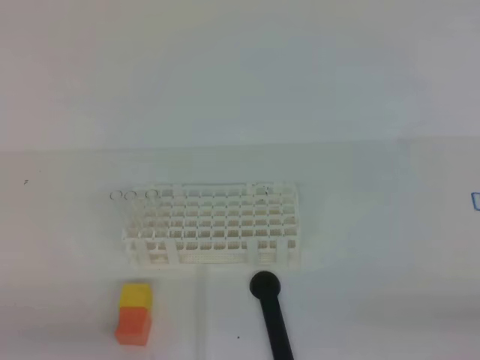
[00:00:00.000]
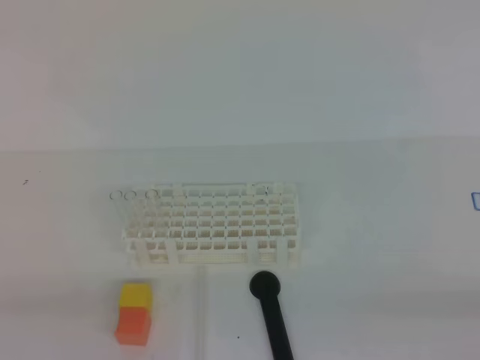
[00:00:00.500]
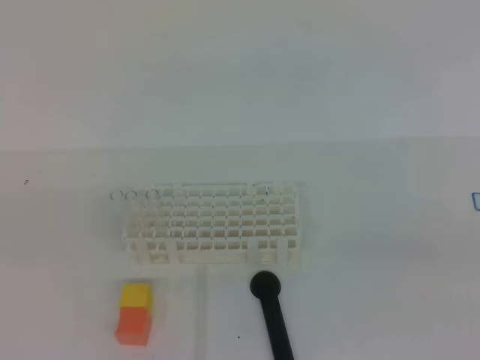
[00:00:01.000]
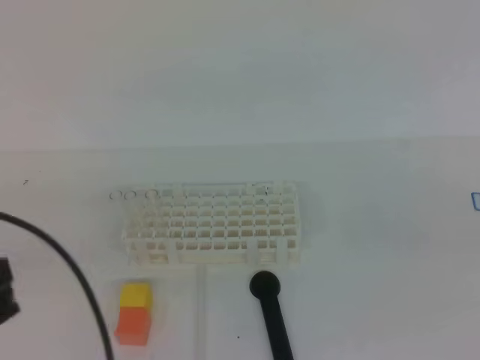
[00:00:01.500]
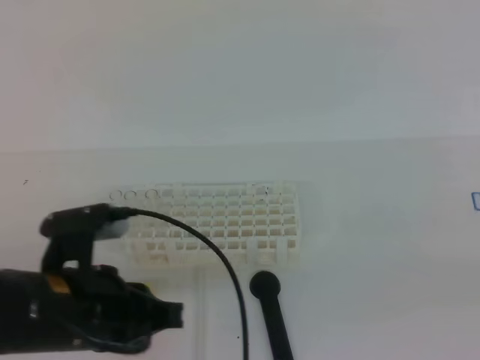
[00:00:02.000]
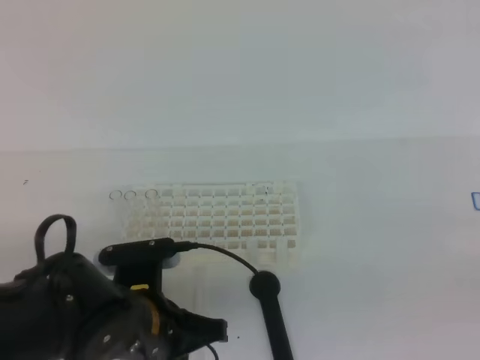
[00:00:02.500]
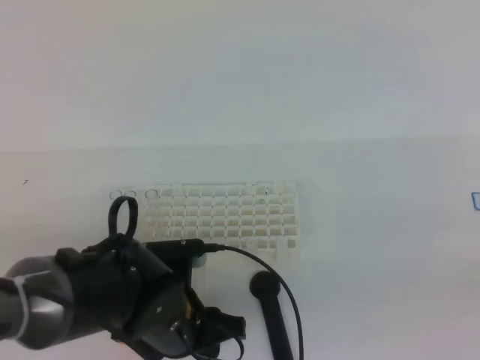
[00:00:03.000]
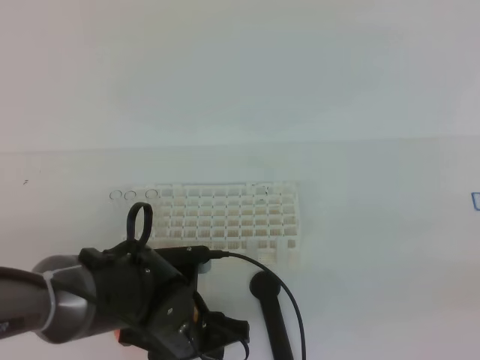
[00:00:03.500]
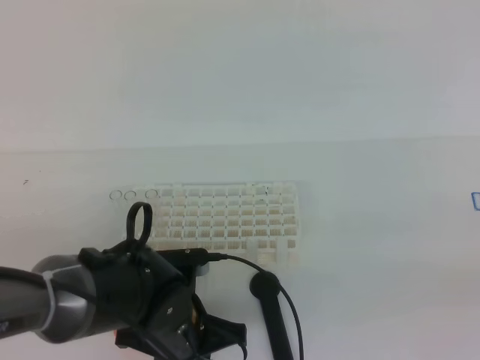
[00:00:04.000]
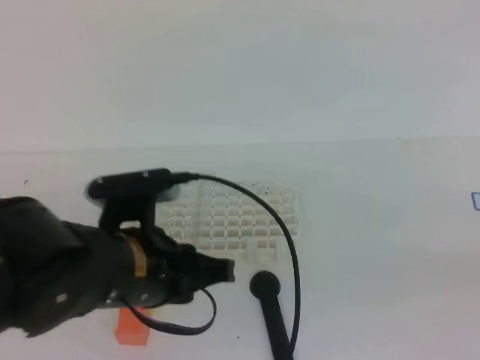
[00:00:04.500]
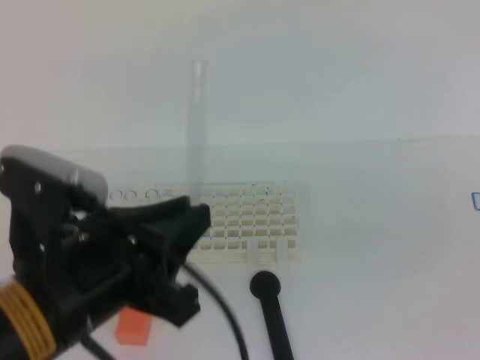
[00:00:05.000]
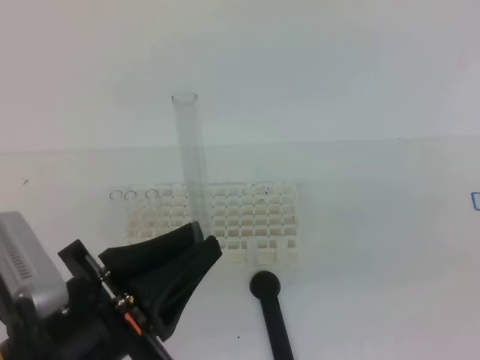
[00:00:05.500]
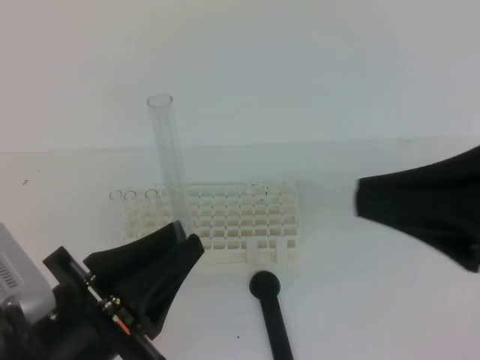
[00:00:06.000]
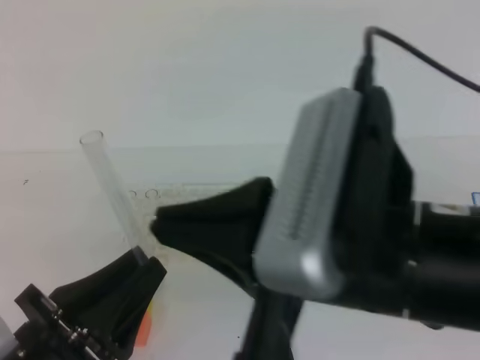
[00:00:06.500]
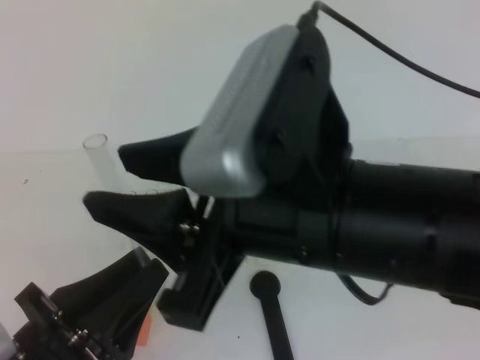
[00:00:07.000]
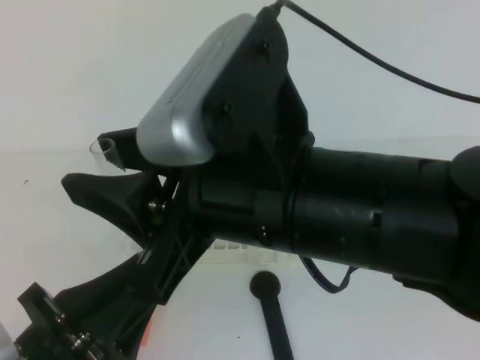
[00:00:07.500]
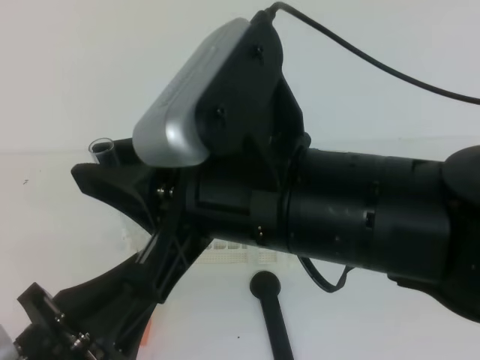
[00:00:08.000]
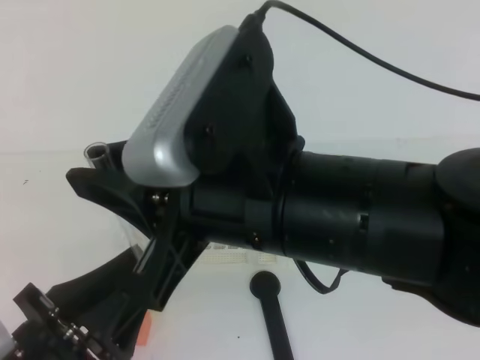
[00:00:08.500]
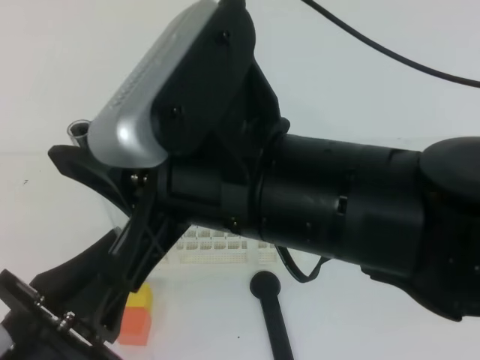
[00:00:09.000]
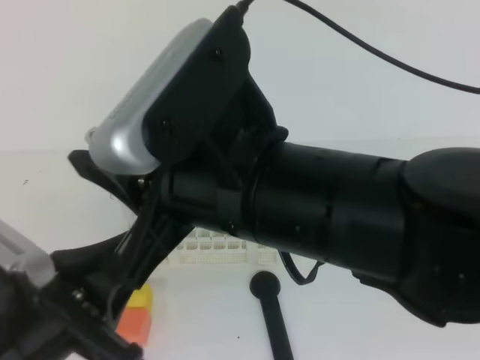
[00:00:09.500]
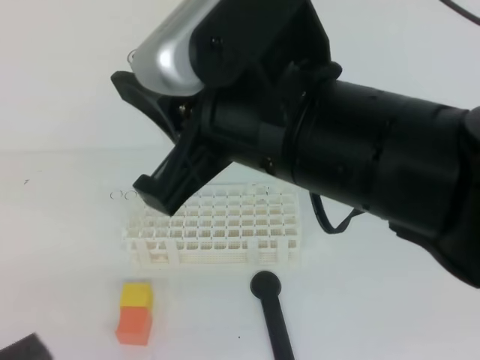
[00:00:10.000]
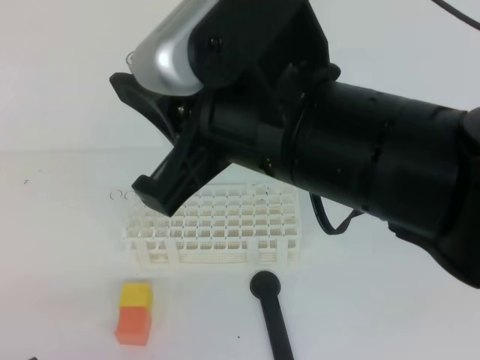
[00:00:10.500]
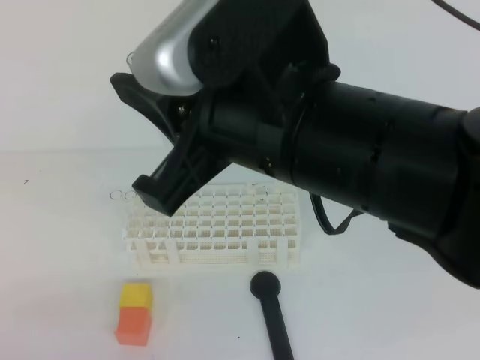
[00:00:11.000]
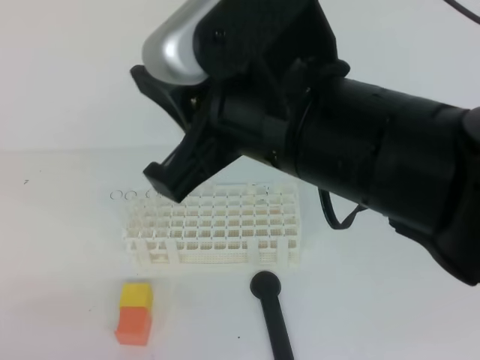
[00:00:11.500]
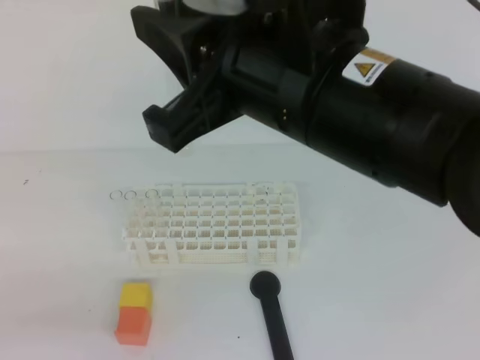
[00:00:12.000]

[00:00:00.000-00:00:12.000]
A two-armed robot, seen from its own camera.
00:00:00.000 to 00:00:02.000: The right gripper shifts roughly 10 cm upward; the left gripper moves forward and to the right, roughly 15 cm, and reaches roughly 15 cm upward, then returns.
00:00:02.000 to 00:00:04.000: The left gripper heads downward and to the right, covering about 15 cm, and opens and closes again.
00:00:04.000 to 00:00:06.000: The left gripper travels upward, backward and to the left by roughly 20 cm. The right gripper travels to the left, upward and forward by some 15 cm.
00:00:06.000 to 00:00:08.000: The right gripper travels to the left by about 15 cm, and opens.
00:00:08.000 to 00:00:10.000: The left gripper is displaced to the left and backward by roughly 10 cm.

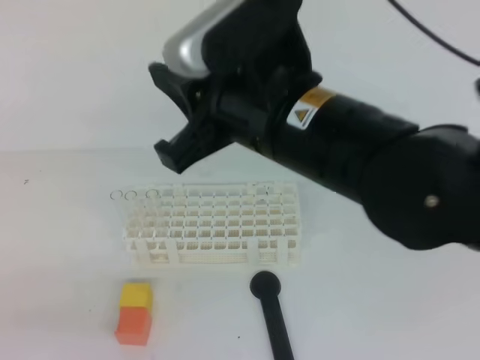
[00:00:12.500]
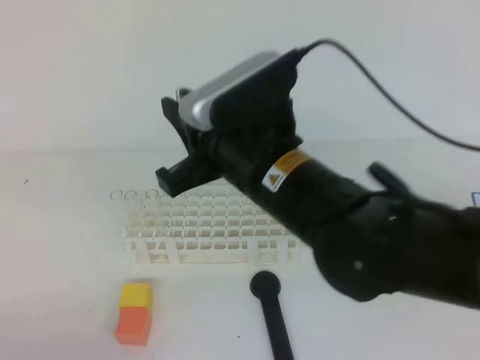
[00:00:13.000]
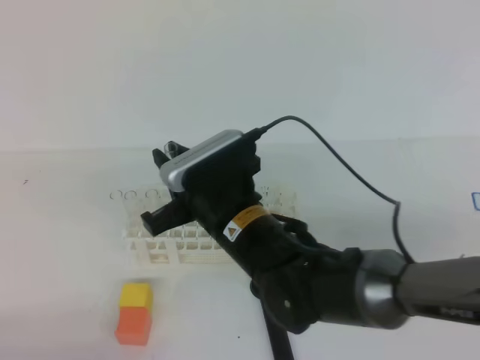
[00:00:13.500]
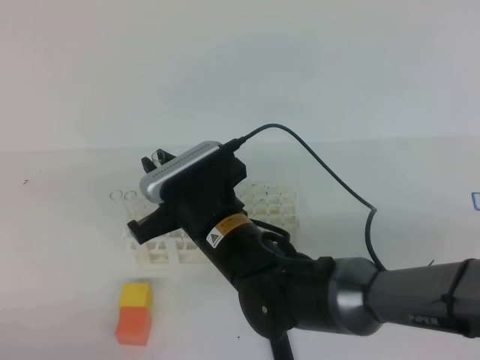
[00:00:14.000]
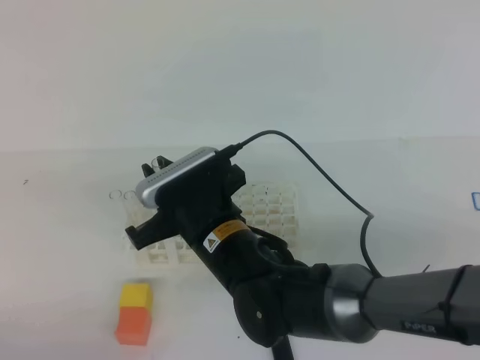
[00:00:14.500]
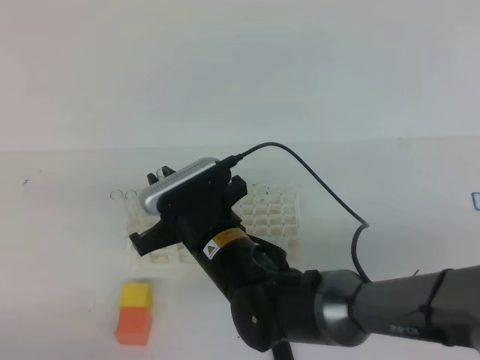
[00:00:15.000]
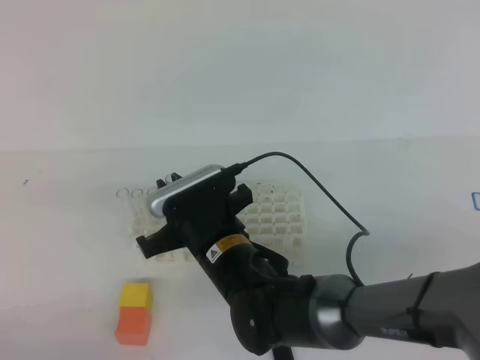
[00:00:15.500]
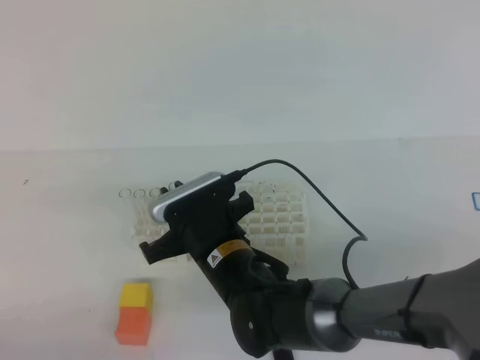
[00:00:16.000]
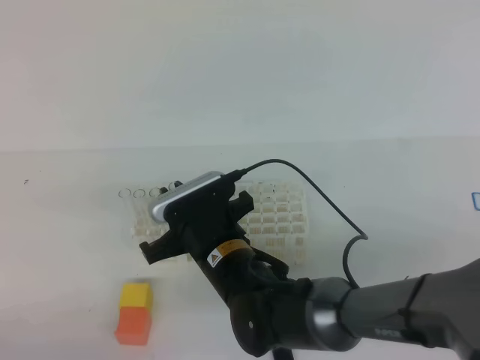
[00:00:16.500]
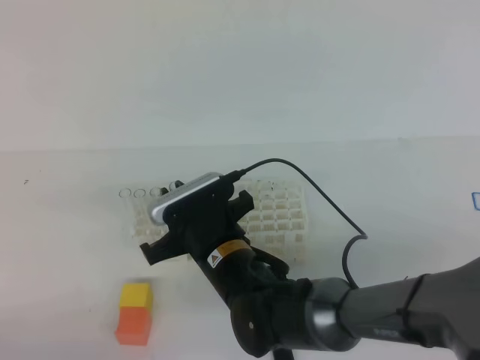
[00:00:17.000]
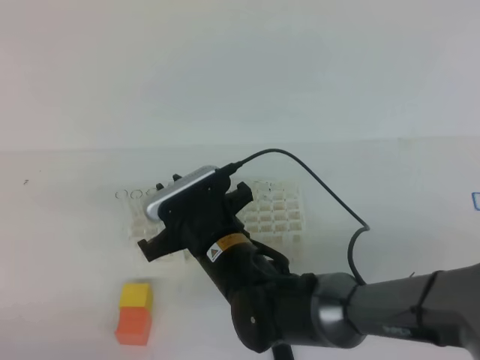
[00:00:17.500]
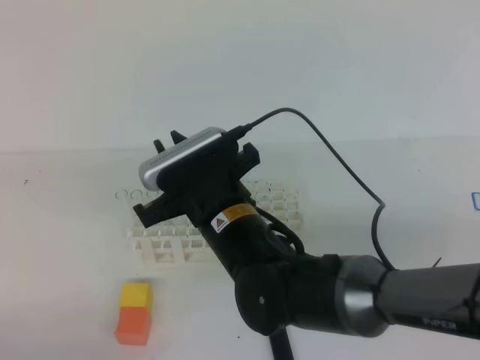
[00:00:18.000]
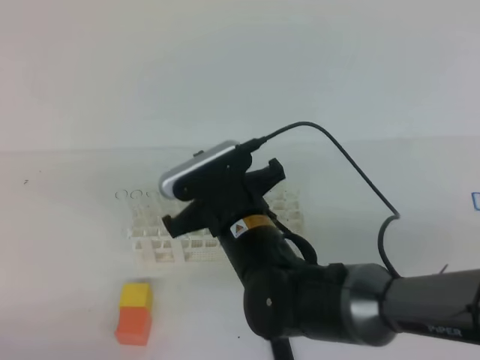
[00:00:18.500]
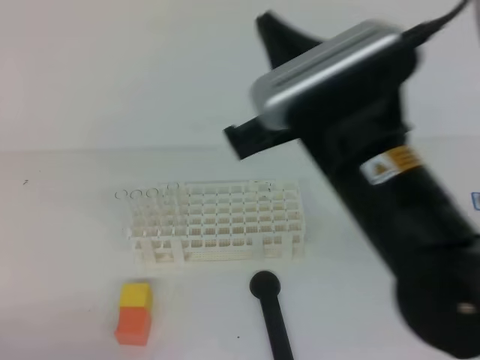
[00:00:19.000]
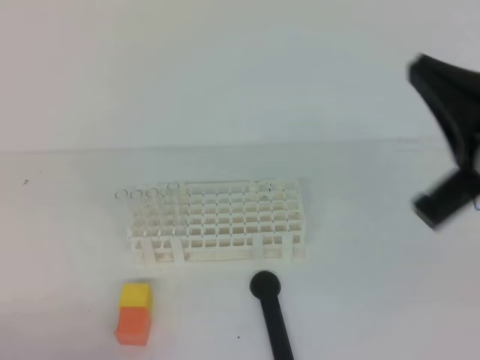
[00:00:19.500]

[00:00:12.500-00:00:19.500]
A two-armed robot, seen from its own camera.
00:00:12.500 to 00:00:14.500: The right gripper is displaced downward and to the left by about 20 cm, while the left gripper moves downward, about 10 cm.
00:00:14.500 to 00:00:16.000: The grippers make only small movements.
00:00:16.000 to 00:00:17.500: Both grippers stay put.
00:00:17.500 to 00:00:19.500: The right gripper travels to the right, upward and backward by about 30 cm, and closes its fingers.

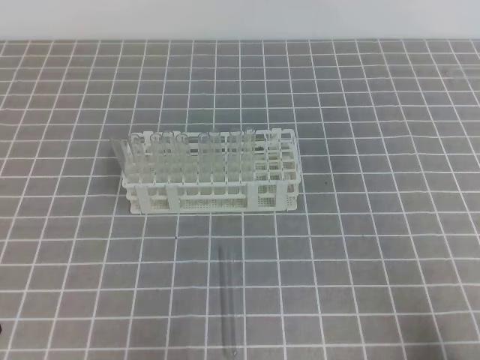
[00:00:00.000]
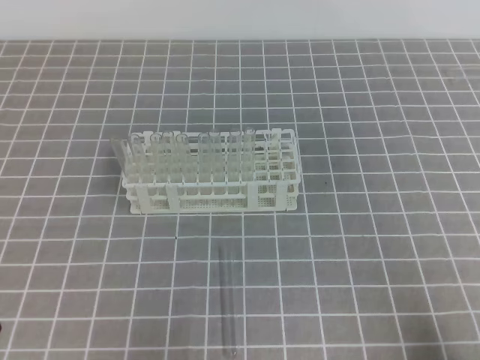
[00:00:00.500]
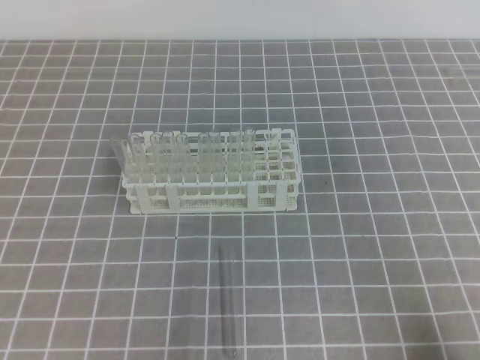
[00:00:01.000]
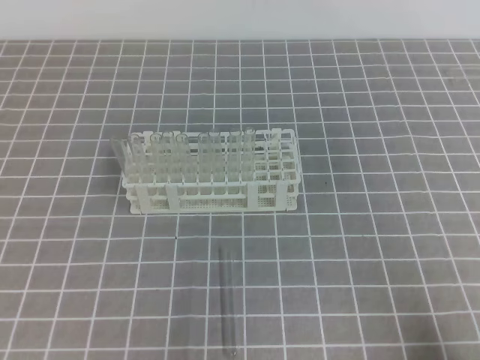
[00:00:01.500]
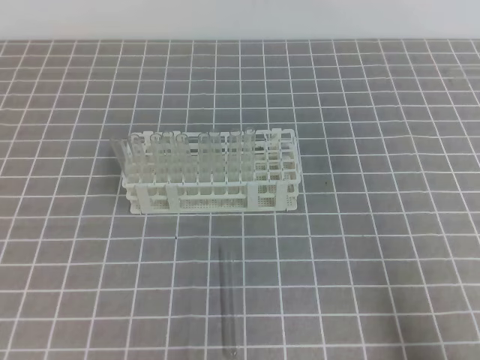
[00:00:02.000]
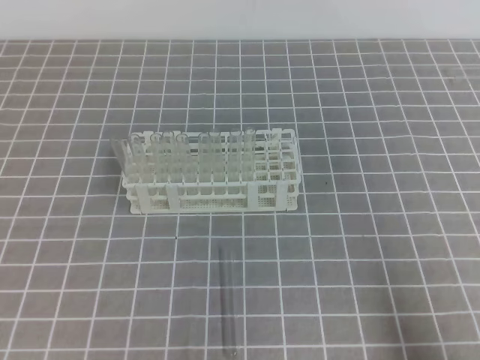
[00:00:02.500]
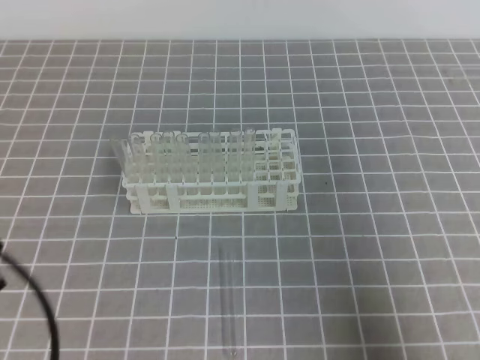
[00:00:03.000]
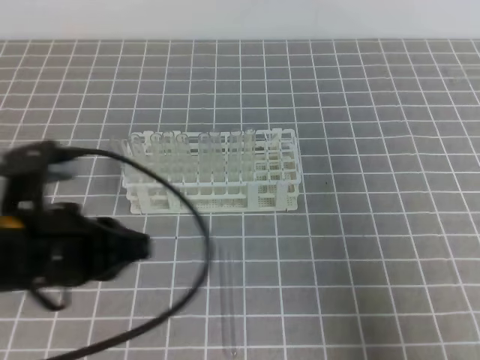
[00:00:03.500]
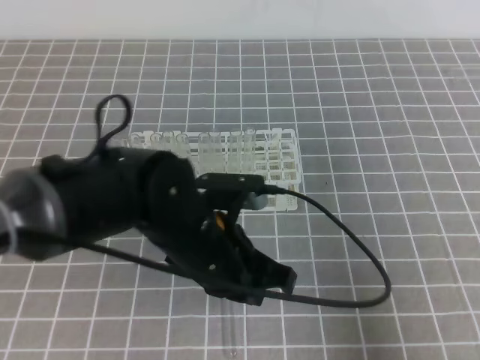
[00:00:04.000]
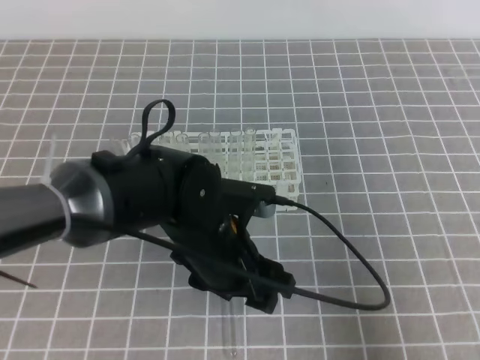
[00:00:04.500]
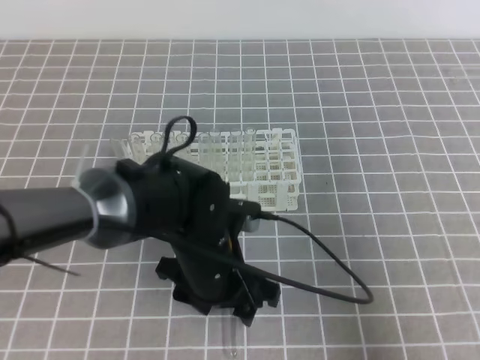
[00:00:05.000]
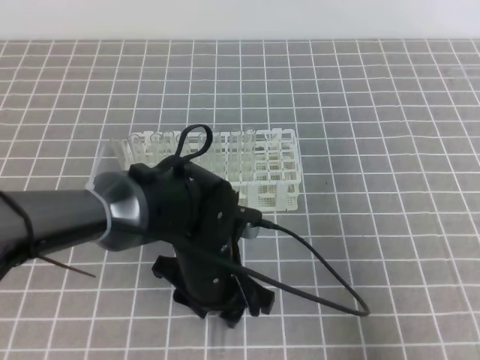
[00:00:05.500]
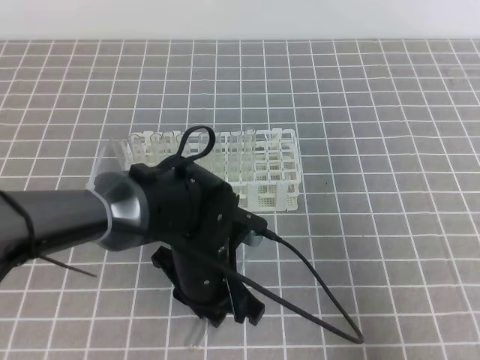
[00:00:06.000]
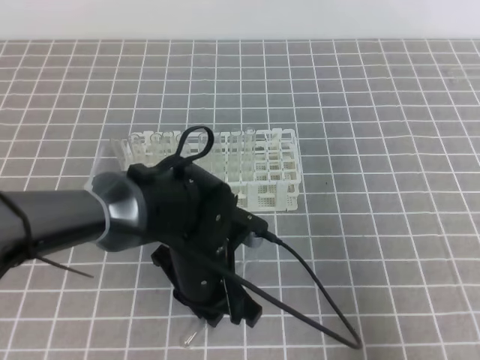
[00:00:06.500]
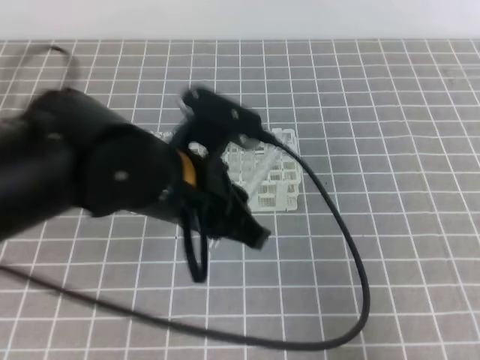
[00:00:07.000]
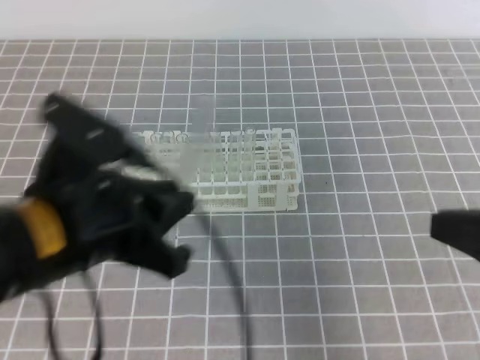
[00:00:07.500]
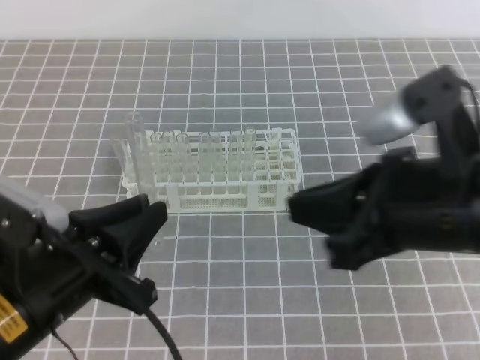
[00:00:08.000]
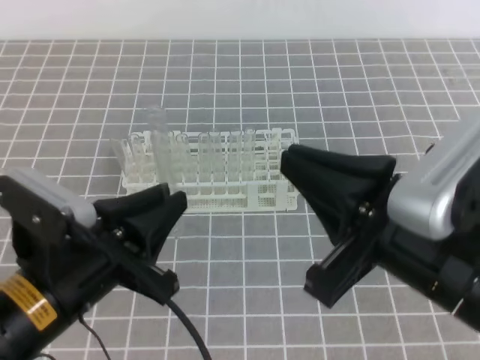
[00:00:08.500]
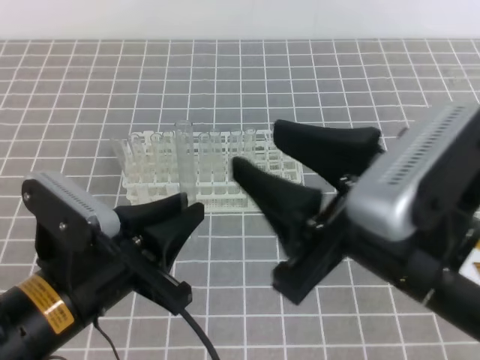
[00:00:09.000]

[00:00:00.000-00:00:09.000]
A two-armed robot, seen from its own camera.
00:00:02.000 to 00:00:04.500: The left gripper heads to the right and forward, covering some 30 cm, and opens its fingers. The right gripper goes approximately 5 cm upward.
00:00:04.500 to 00:00:07.000: The left gripper moves upward, about 10 cm, and closes its fingers.
00:00:07.000 to 00:00:09.000: The right gripper goes some 15 cm to the left, and opens up. Meanwhile the left gripper is displaced to the left and backward by approximately 10 cm.
